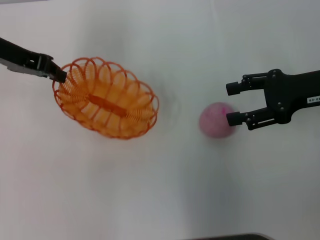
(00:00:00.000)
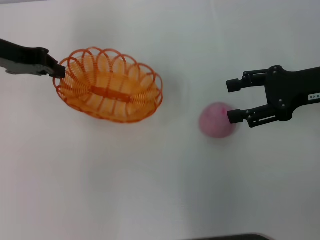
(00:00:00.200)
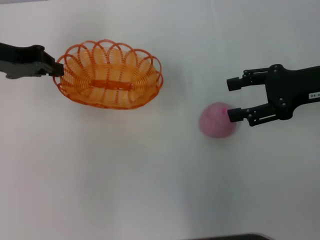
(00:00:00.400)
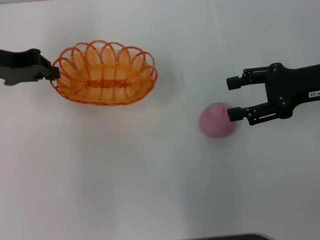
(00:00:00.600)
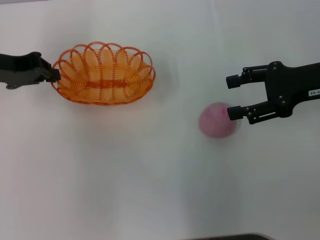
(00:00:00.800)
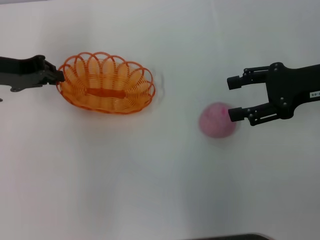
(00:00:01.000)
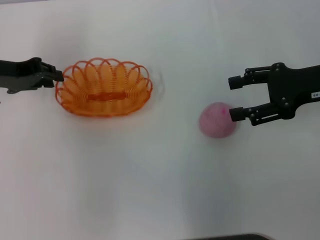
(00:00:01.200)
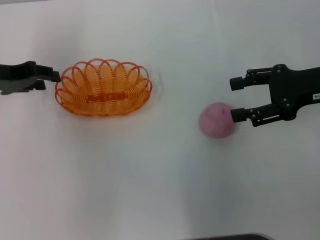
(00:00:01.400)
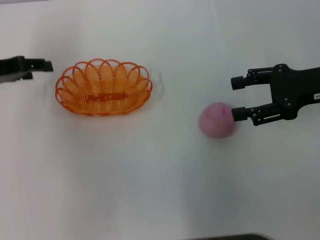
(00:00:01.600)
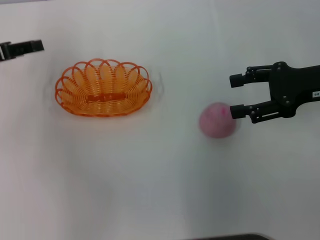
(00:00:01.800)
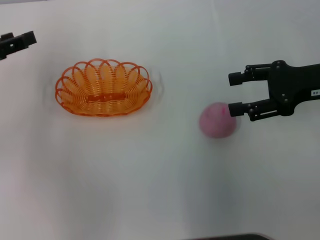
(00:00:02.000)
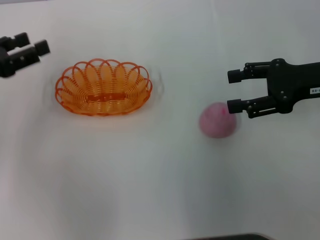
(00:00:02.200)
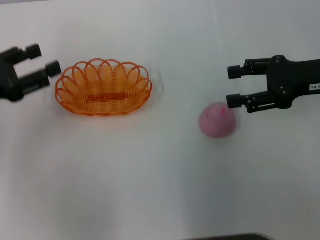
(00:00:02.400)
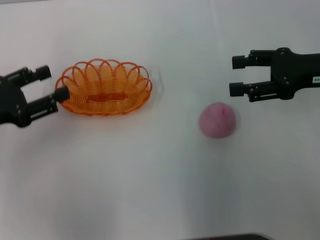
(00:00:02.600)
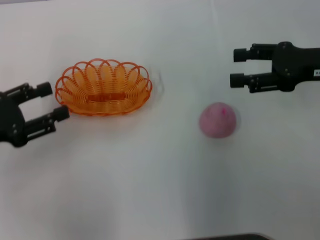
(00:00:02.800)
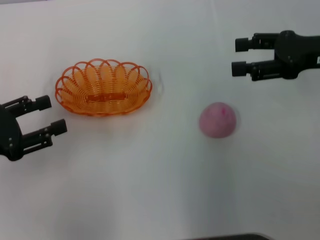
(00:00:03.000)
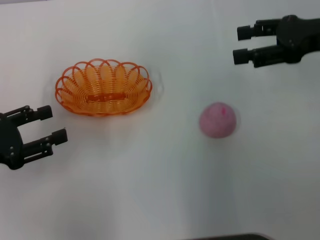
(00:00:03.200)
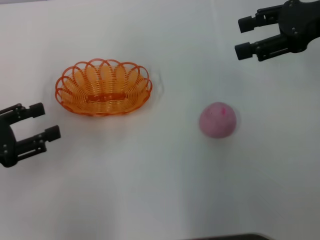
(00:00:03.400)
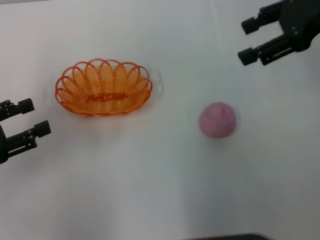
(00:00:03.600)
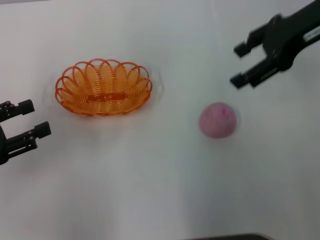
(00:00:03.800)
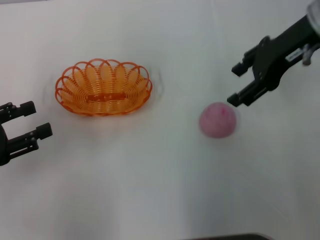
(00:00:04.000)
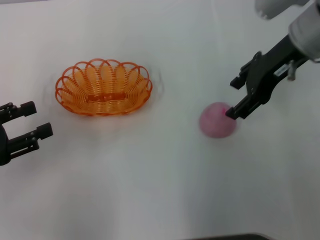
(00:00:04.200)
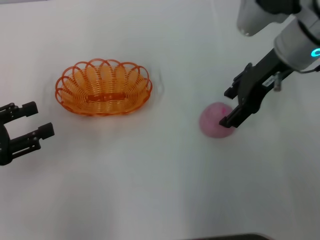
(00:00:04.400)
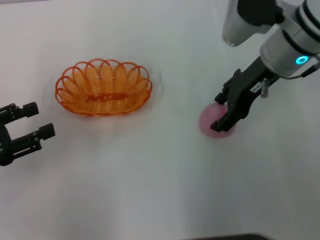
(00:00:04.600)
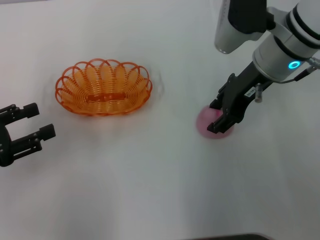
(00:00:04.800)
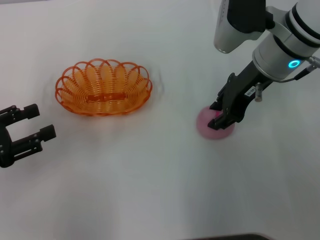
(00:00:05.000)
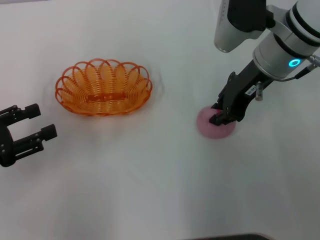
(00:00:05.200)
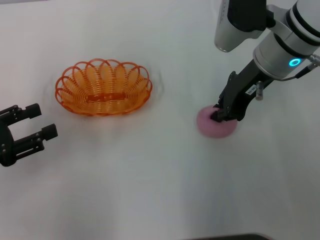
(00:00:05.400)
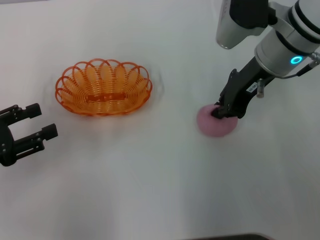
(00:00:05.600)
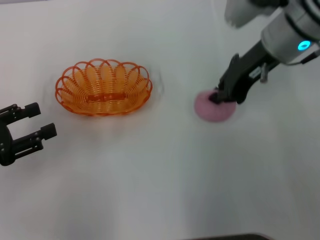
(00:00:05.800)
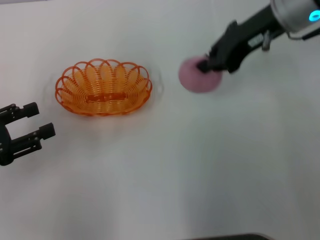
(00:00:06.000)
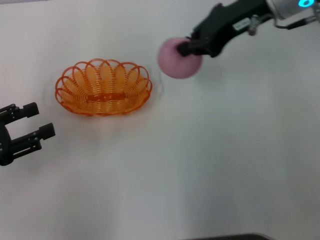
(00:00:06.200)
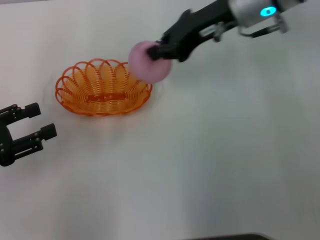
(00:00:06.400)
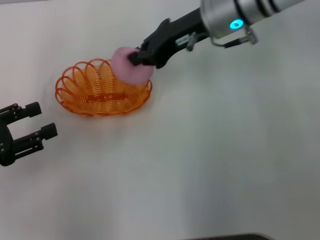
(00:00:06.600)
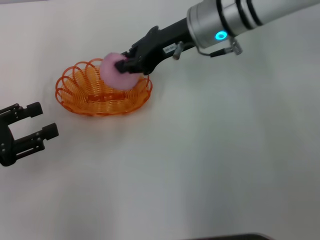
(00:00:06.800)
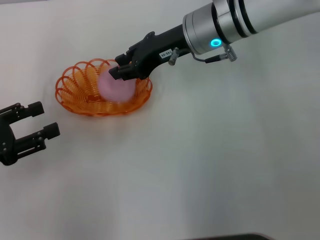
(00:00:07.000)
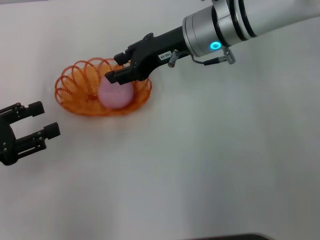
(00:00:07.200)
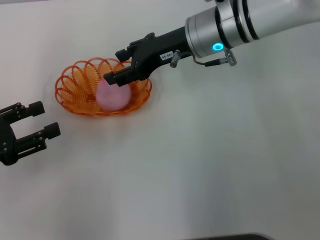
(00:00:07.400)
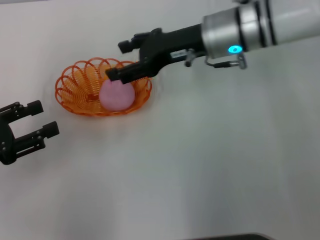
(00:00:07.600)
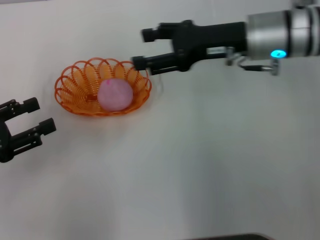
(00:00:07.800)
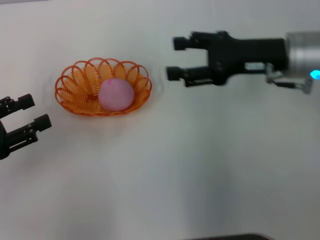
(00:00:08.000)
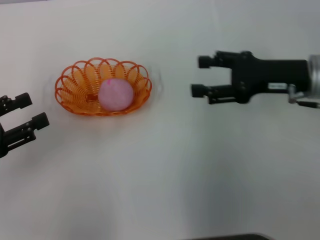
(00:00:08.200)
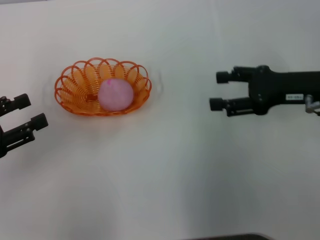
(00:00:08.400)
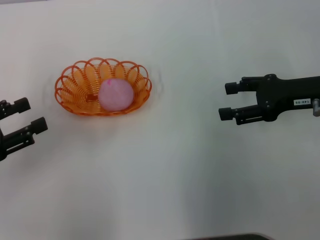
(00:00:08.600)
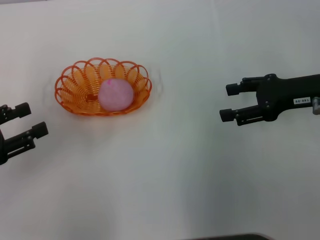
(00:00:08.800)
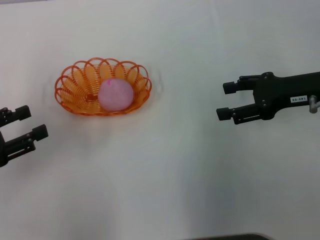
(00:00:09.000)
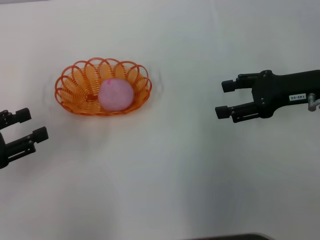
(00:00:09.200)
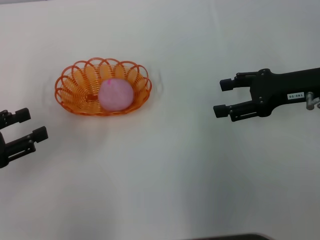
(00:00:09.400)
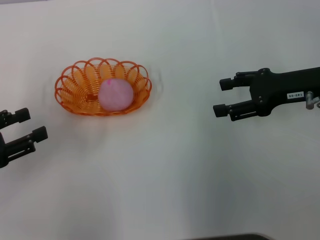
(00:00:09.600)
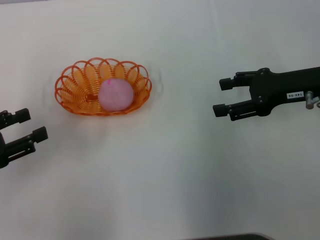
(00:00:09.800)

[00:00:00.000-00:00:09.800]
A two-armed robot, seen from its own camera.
Step, 00:00:00.000 to 00:00:01.600: Place the basket in the center of view with the left gripper.
Step, 00:00:02.000 to 00:00:06.000: Pick up the peach with the right gripper.
Step, 00:00:06.200 to 00:00:07.400: Place the peach into the basket with the right gripper.
00:00:00.000 to 00:00:01.400: The left gripper travels downward by some 5 cm.
00:00:01.400 to 00:00:02.800: The left gripper shifts approximately 10 cm backward, and opens up.
00:00:02.800 to 00:00:04.200: The right gripper travels to the left and upward by some 10 cm.
00:00:04.200 to 00:00:05.600: The right gripper closes.
00:00:05.600 to 00:00:07.000: The right gripper heads to the left, covering approximately 5 cm.
00:00:07.000 to 00:00:08.400: The right gripper moves to the right and backward, about 20 cm, and opens up.
00:00:08.400 to 00:00:09.800: There are only small adjustments of the grippers.
